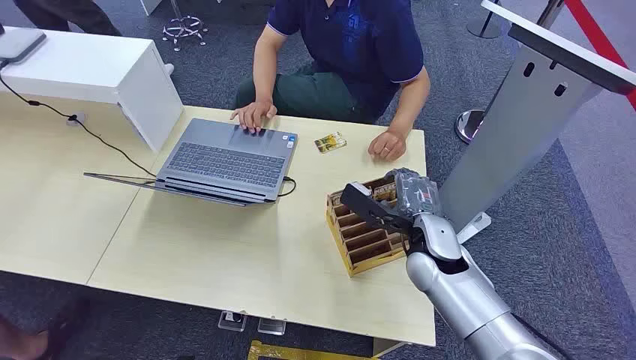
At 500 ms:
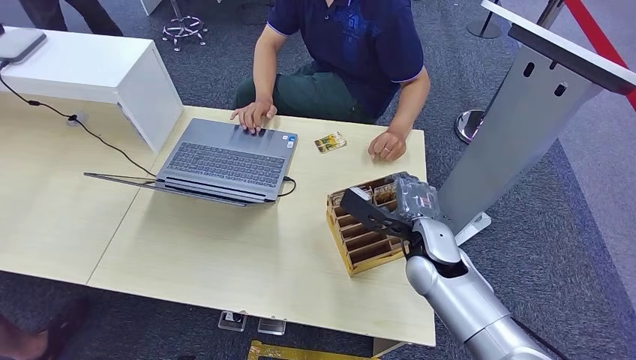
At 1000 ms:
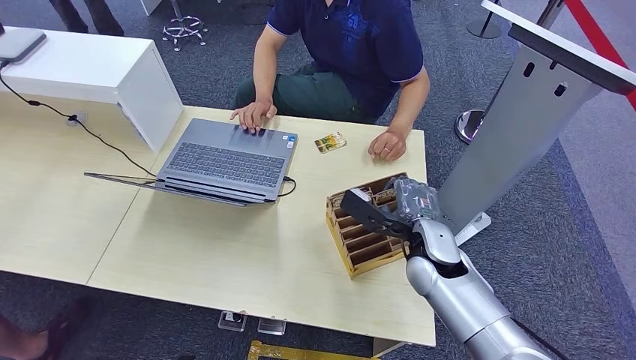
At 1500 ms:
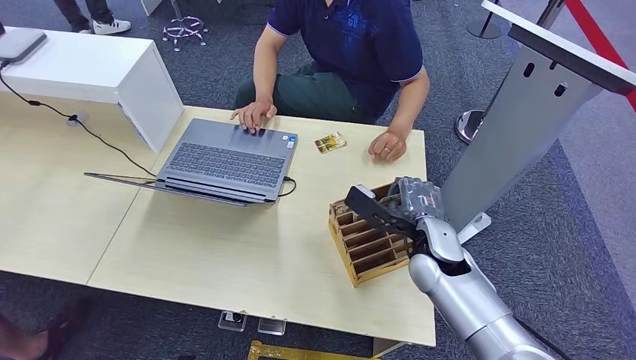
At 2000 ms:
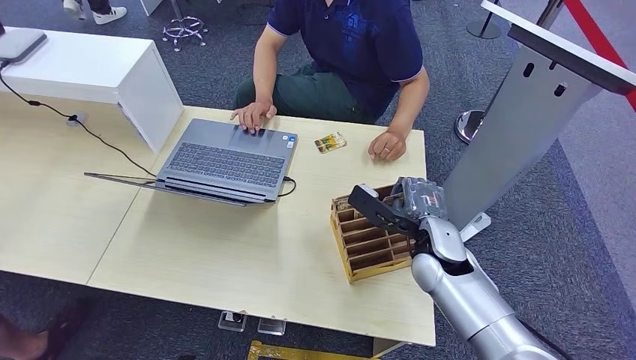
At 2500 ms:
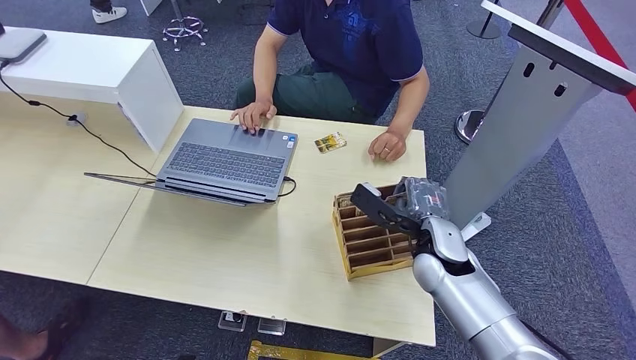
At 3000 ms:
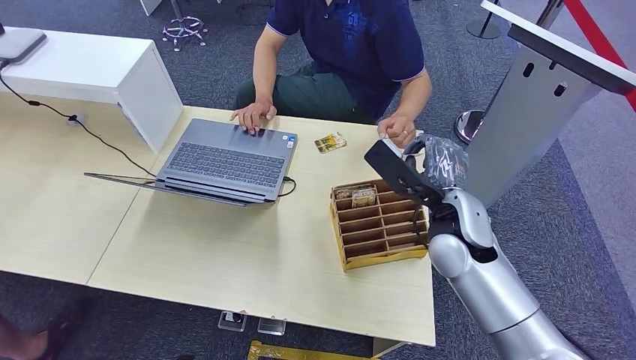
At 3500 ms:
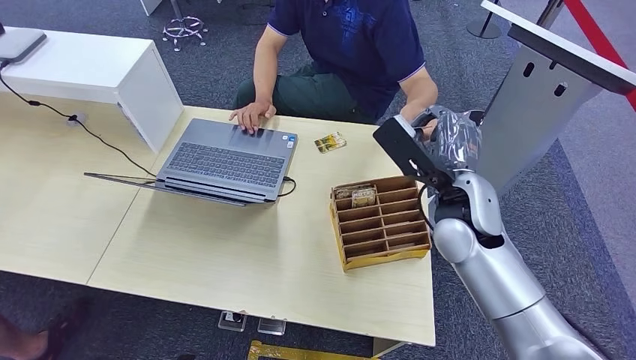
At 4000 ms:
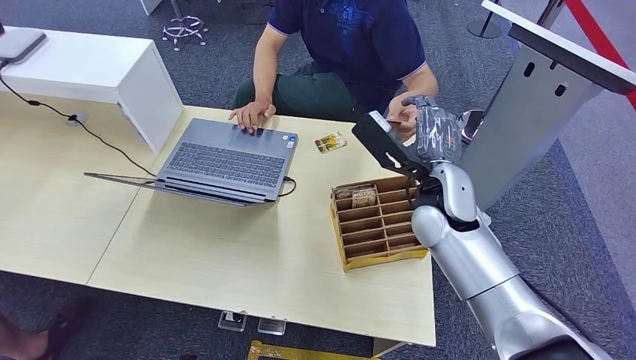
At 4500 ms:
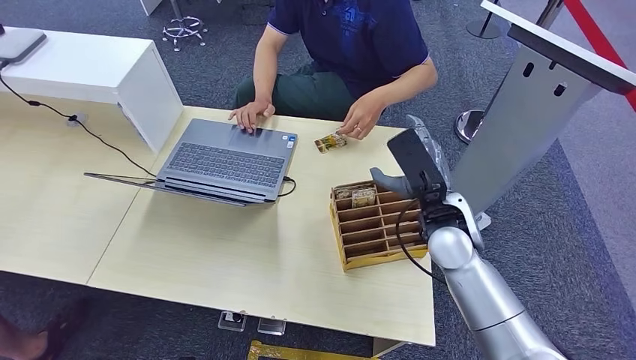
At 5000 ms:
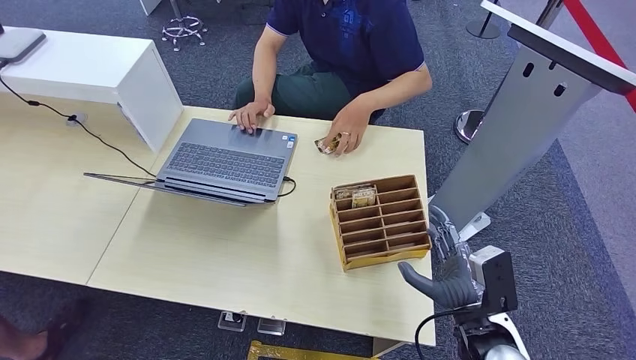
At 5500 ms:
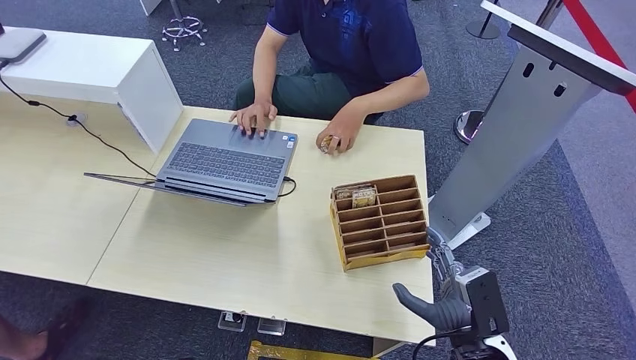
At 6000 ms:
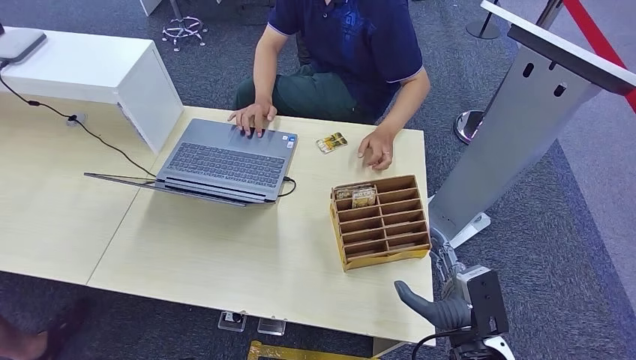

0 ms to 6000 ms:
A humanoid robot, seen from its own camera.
Step, 0 ms to 2500 ms: Pick up the key card from the card box.
Step, 3000 ms to 6000 ms: Hand the key card to the target.
2000 ms to 4000 ms: The right hand heads upward, covering roughly 10 cm.
4000 ms to 6000 ms: The right hand is displaced backward, downward and to the right by roughly 25 cm.
